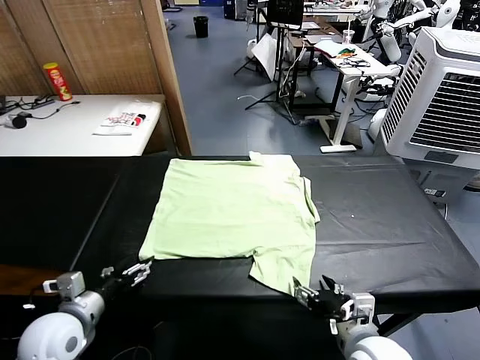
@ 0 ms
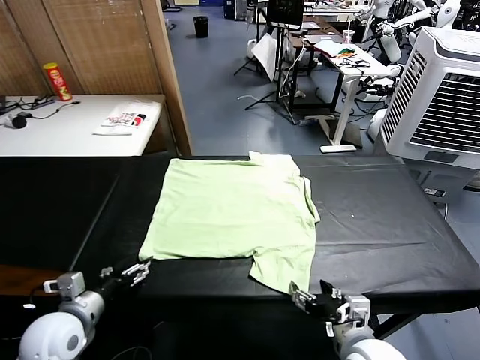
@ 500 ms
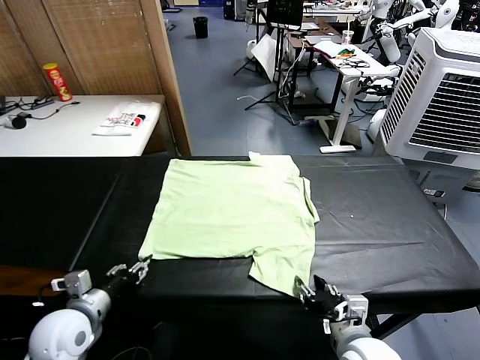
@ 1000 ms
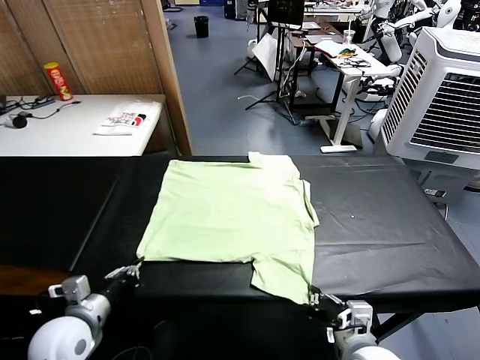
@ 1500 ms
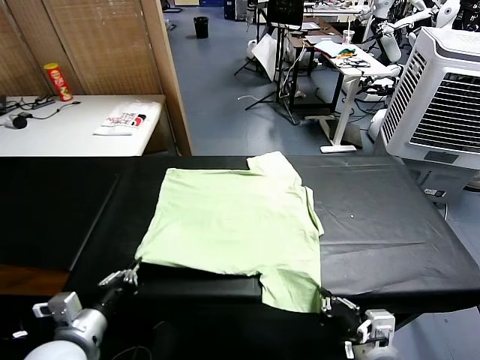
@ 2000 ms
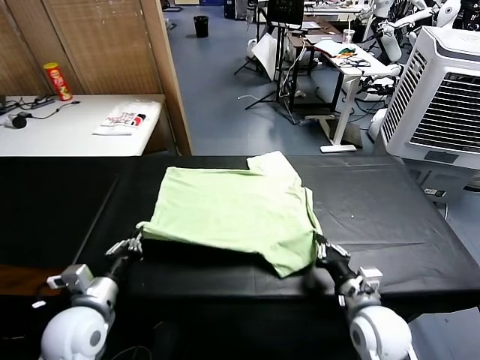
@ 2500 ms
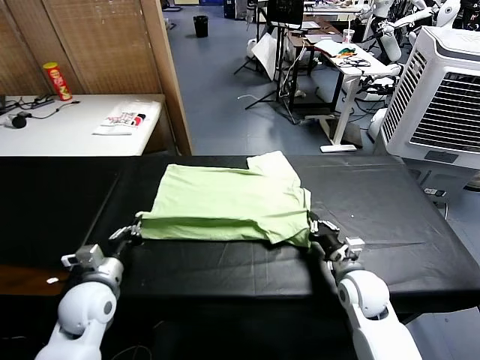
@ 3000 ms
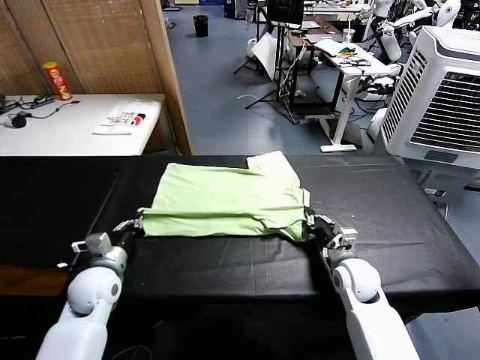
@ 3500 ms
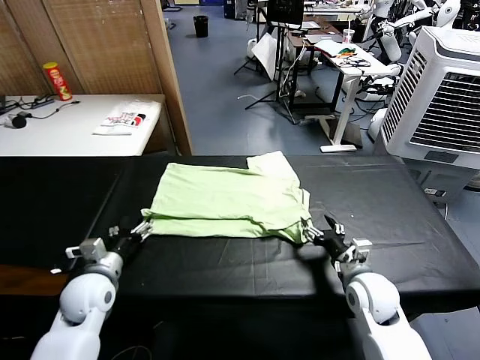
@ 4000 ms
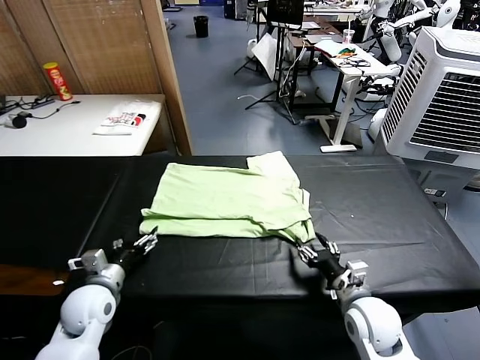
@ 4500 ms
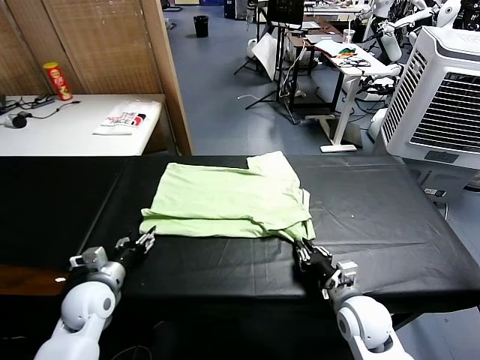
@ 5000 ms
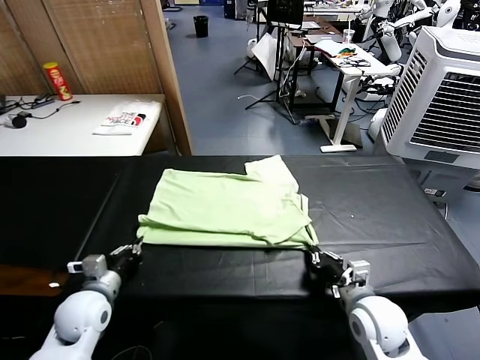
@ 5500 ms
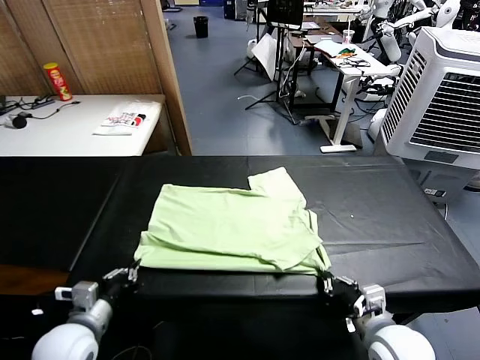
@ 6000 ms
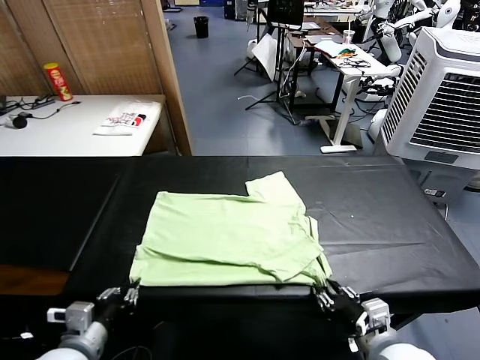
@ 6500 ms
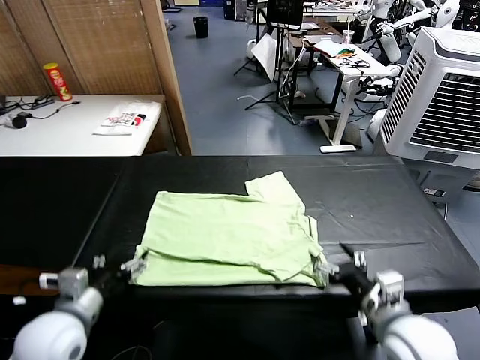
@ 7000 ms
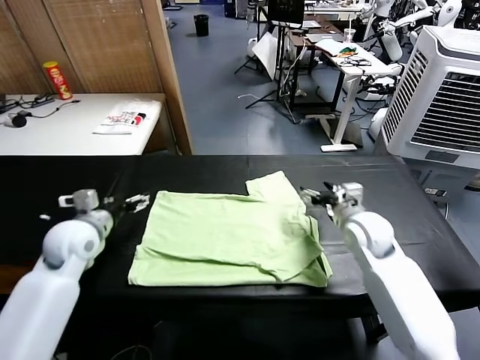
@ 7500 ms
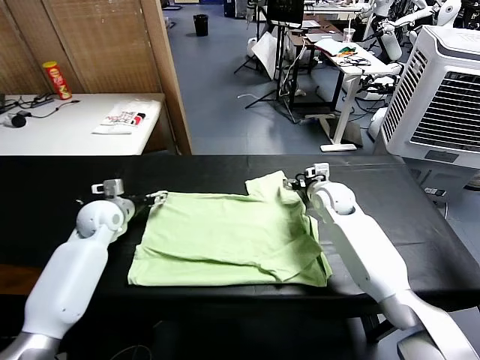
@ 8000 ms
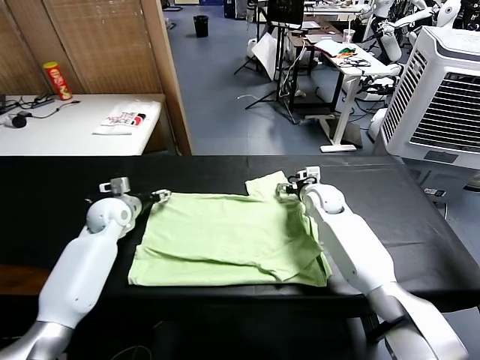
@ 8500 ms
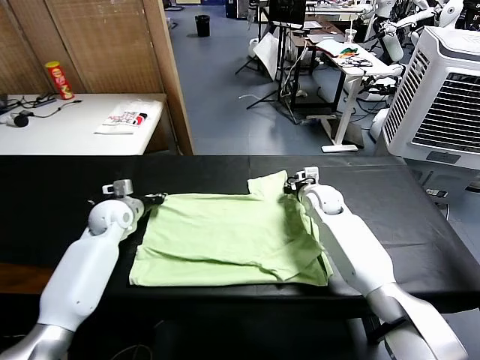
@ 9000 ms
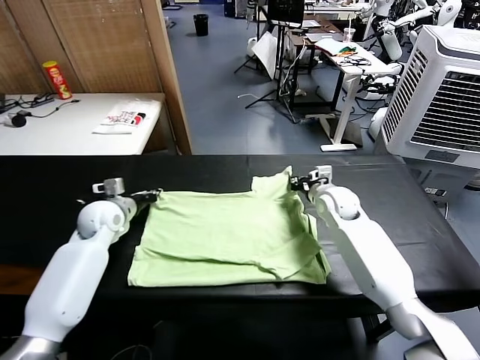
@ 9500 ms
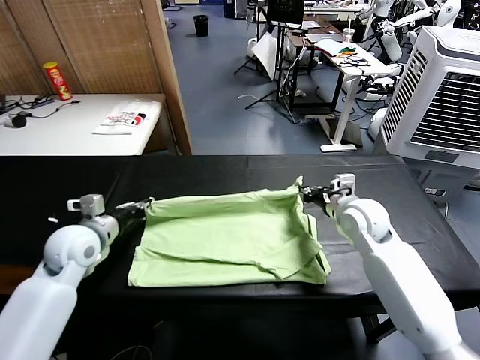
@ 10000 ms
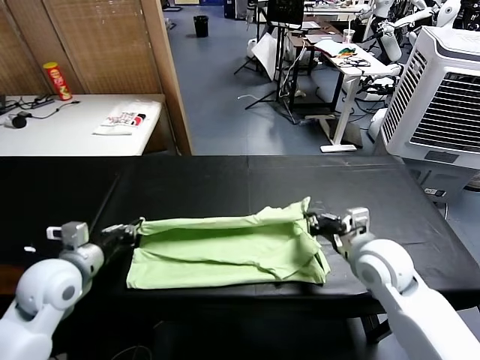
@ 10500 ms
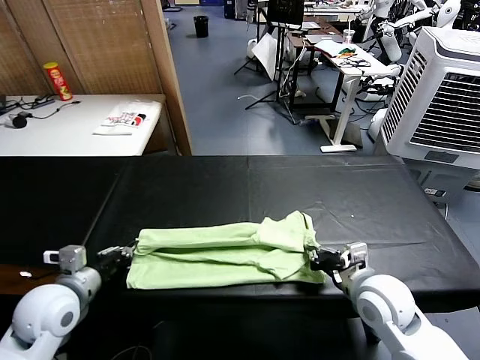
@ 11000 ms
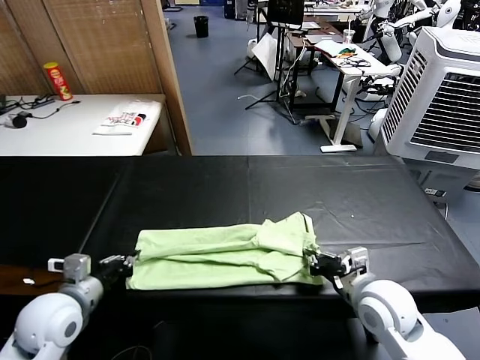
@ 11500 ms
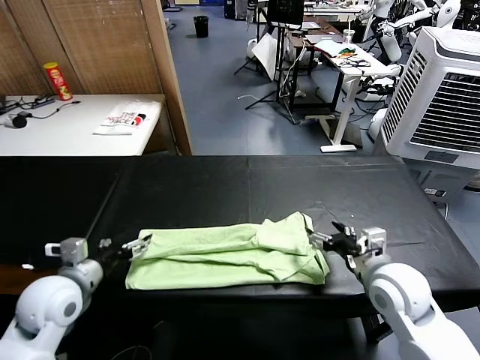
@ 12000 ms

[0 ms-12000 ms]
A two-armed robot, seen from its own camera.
Task of the whole recording: fold and organize the clothes.
Step, 0 ms to 1500 ms: use both grippers simultaneously to clamp the lower edge of the clothing fabric.
Step, 2000 ms to 3500 ms: use both grippers to drag the lower edge of the fabric forward and fold it over the upper edge.
Step, 4000 ms to 6500 ms: Drag the clothes downward with both gripper.
Step, 7000 ms to 8500 ms: use both grippers simultaneously to clamp the upper edge of the clothing fabric.
Step, 9500 ms to 11500 ms: use both grippers to drag the upper edge of the fabric backward and fold it over the lower edge.
2000 ms to 4000 ms: The left gripper shifts approximately 15 cm forward and downward, and opens up, while the right gripper heads forward, covering roughly 10 cm, and opens.
4000 ms to 6000 ms: Both grippers travel together backward, roughly 10 cm. The right gripper closes up. The left gripper closes up.
6000 ms to 8000 ms: Both grippers travel together forward, some 30 cm. The right gripper opens, while the left gripper opens.
8000 ms to 10000 ms: The right gripper goes about 15 cm backward and upward, and closes. The left gripper goes some 10 cm backward, and closes.
10000 ms to 12000 ms: Both grippers move backward, about 10 cm. The left gripper opens. The right gripper opens up.

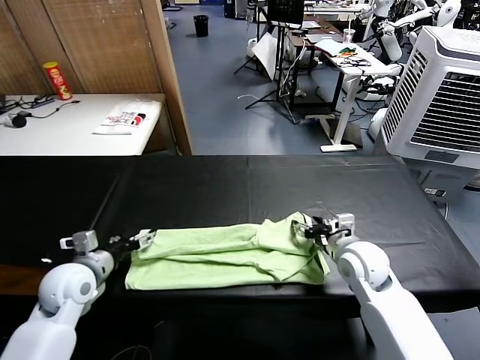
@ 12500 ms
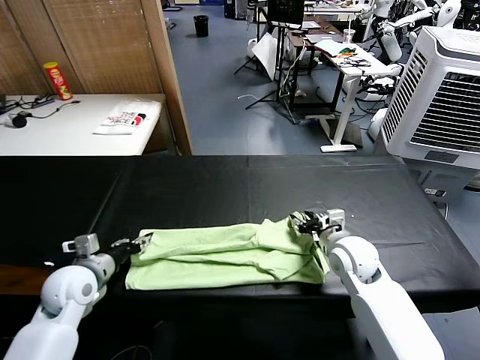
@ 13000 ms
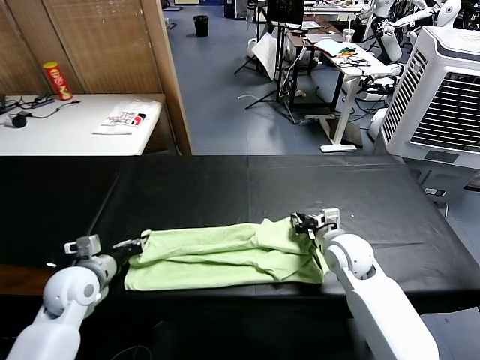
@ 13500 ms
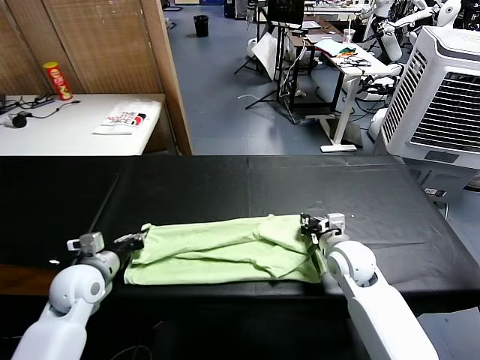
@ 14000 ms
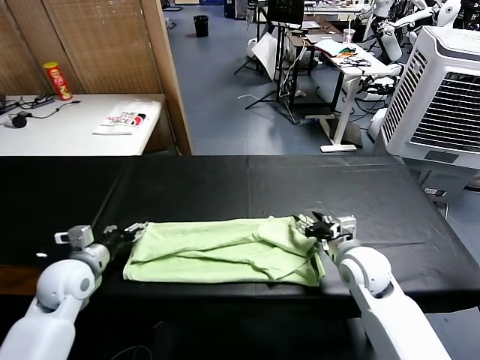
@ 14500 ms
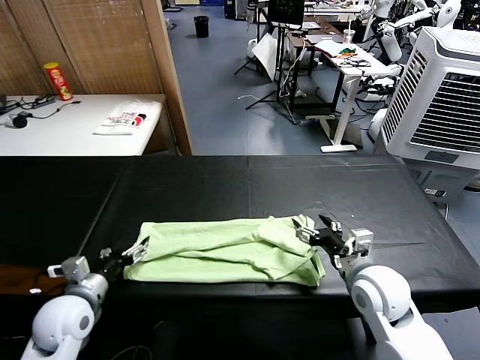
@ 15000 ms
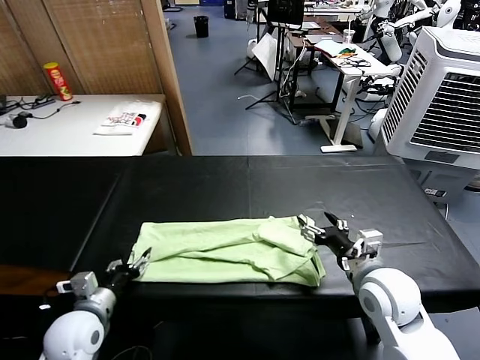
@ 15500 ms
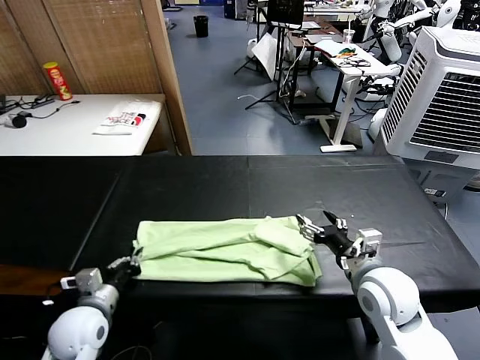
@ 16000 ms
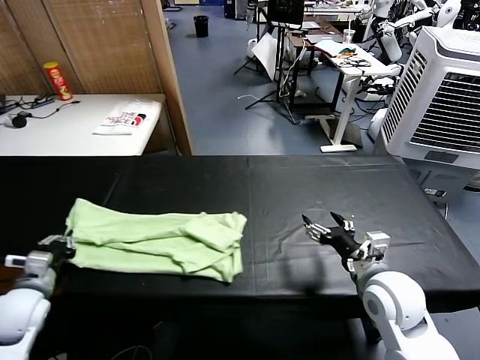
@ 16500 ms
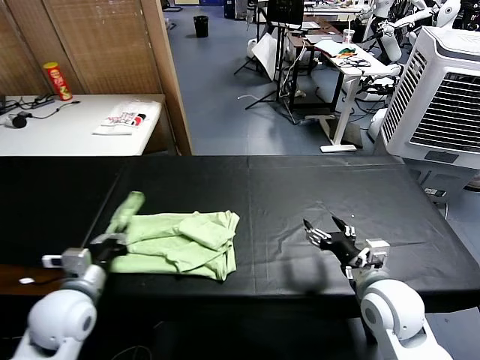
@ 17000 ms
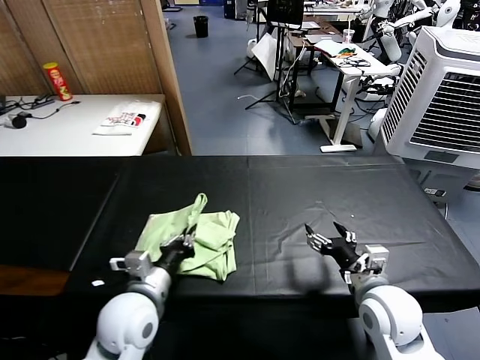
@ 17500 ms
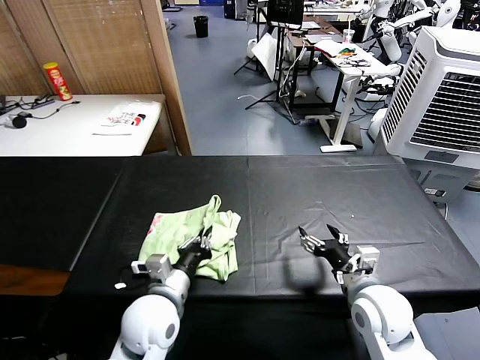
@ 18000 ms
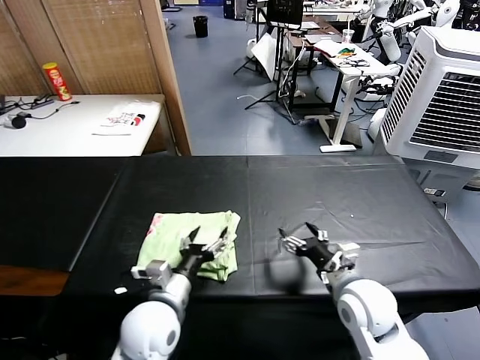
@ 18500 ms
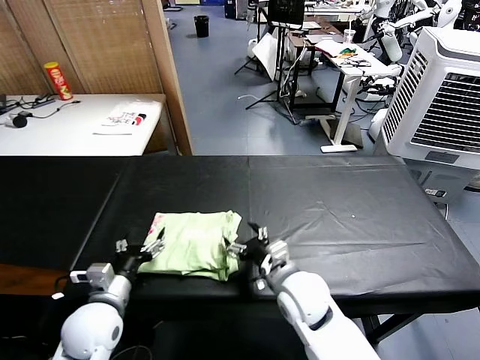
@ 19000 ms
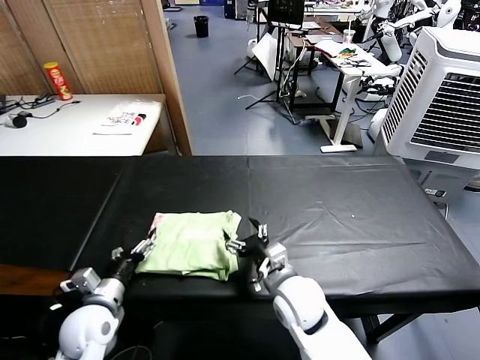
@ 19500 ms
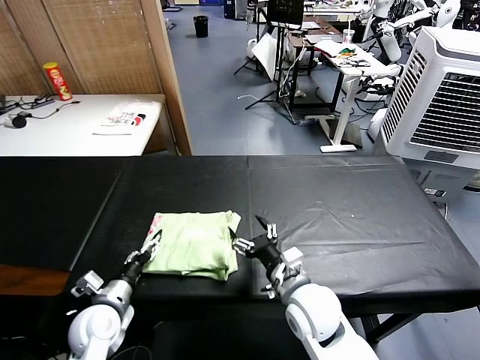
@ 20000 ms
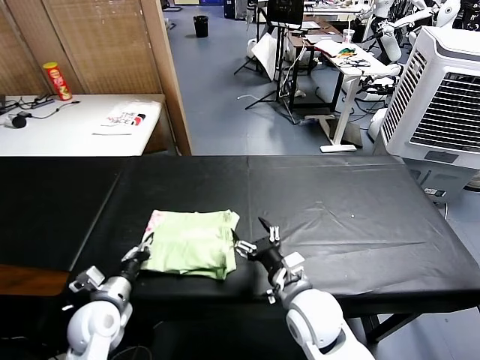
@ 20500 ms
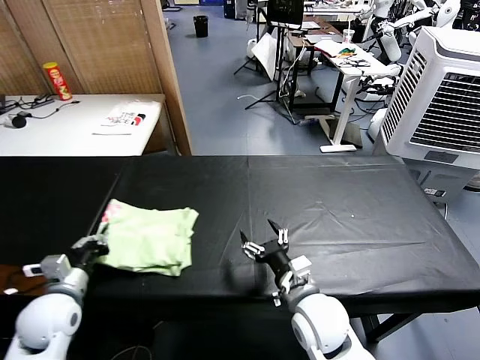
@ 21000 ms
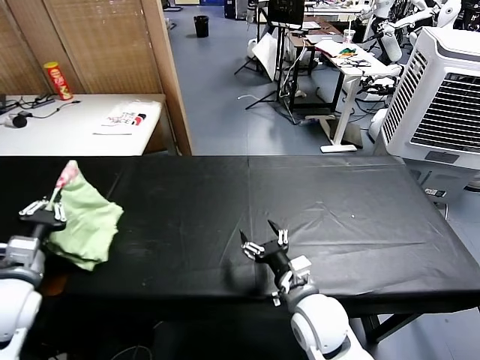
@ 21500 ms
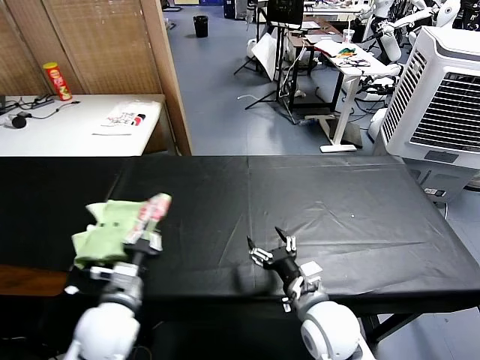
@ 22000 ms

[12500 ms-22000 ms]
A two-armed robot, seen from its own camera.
Task of the whole recording: fold and organize the clothes.
Step, 12500 ms to 15500 ms: use the left gripper to clamp the left edge of the fabric.
Step, 16000 ms to 18000 ms: use the left gripper to drag the left edge of the fabric to the left and folds it over the right edge.
12500 ms to 14500 ms: The left gripper closes, then opens again; the right gripper closes, then opens again.
14500 ms to 16500 ms: The left gripper goes some 10 cm to the left and backward, and closes up; the right gripper moves backward, about 5 cm.
16500 ms to 18000 ms: The left gripper goes roughly 25 cm to the right.
18000 ms to 20000 ms: The right gripper shifts roughly 10 cm to the left, while the left gripper goes some 15 cm to the left and downward, and opens its fingers.
20000 ms to 22000 ms: The left gripper travels upward and to the right by about 10 cm, and closes up.

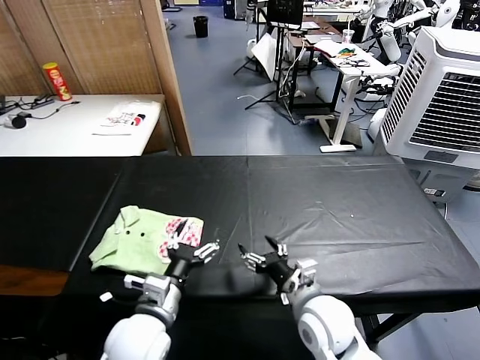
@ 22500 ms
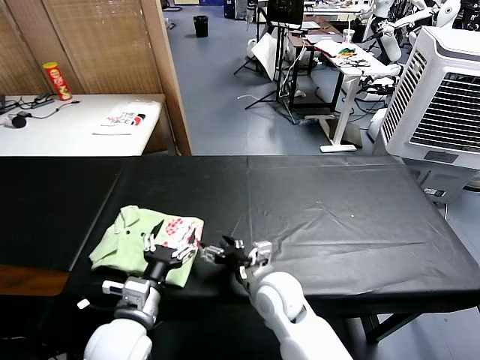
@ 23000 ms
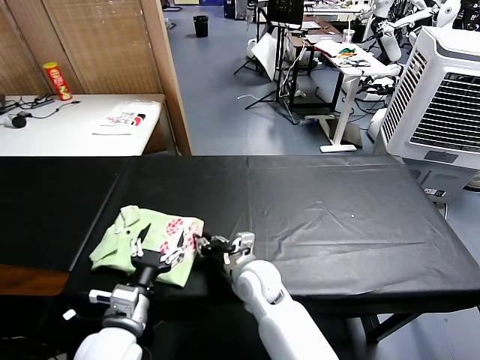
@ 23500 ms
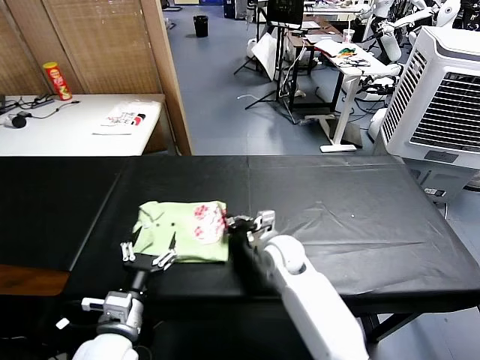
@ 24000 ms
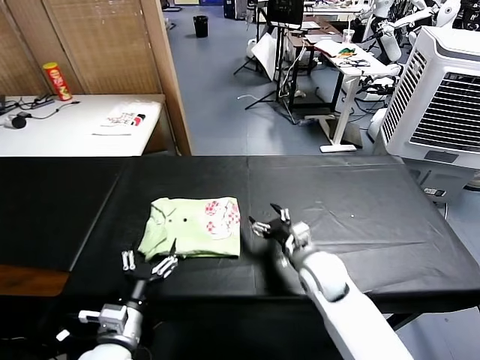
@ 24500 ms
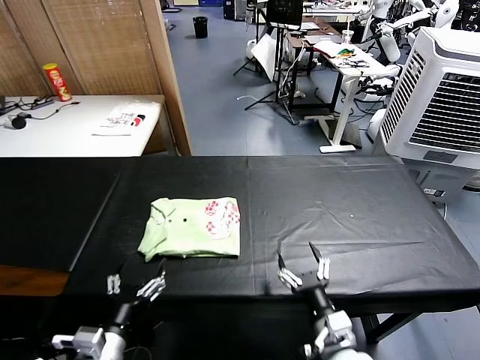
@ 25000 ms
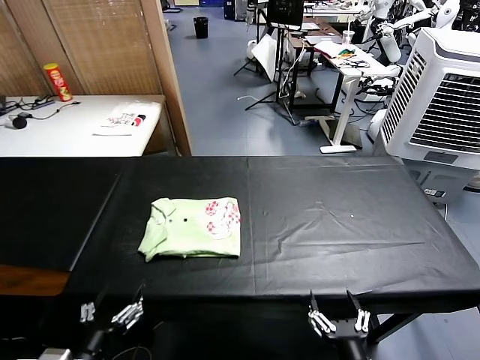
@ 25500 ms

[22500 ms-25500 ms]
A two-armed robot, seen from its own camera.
Task of the whole recording: fold and organize the clothes.
Step, 22500 ms to 24000 ms: Drag the clothes to the center of the table.
22500 ms to 24000 ms: The right gripper is displaced forward and to the left by approximately 15 cm, and closes its fingers. Meanwhile the left gripper goes approximately 5 cm to the left.
24000 ms to 25500 ms: The left gripper shifts about 10 cm backward and to the left; the right gripper heads backward, covering approximately 30 cm, and opens its fingers.
